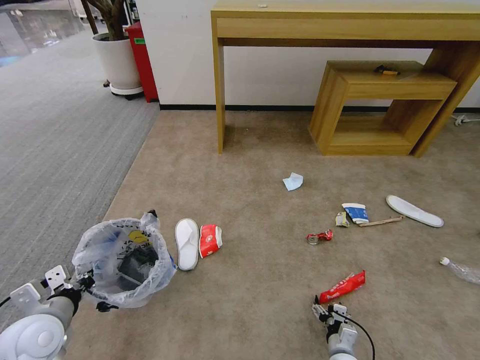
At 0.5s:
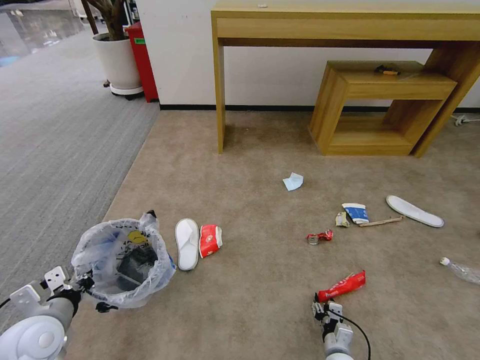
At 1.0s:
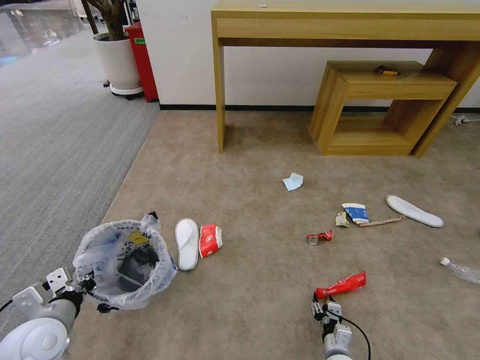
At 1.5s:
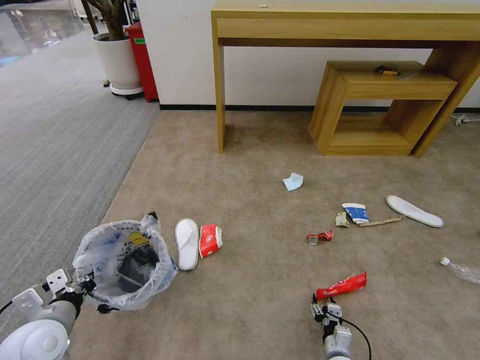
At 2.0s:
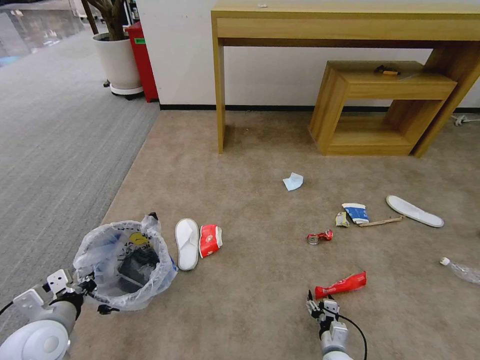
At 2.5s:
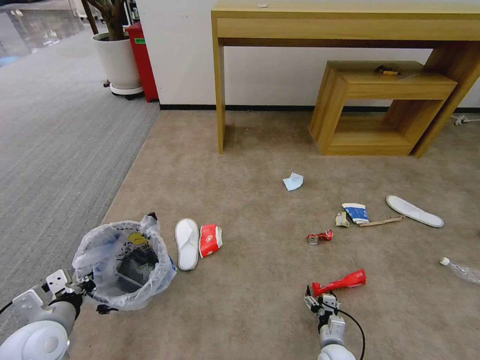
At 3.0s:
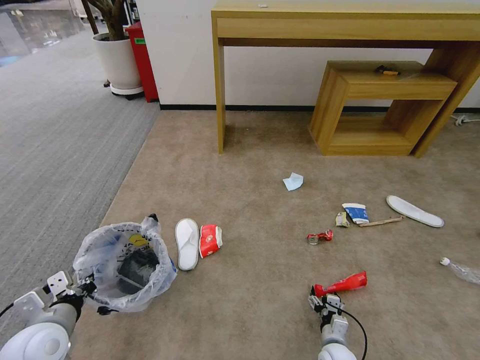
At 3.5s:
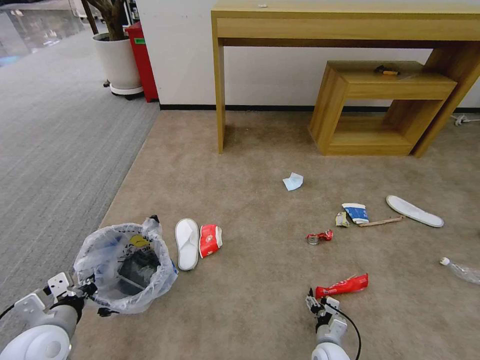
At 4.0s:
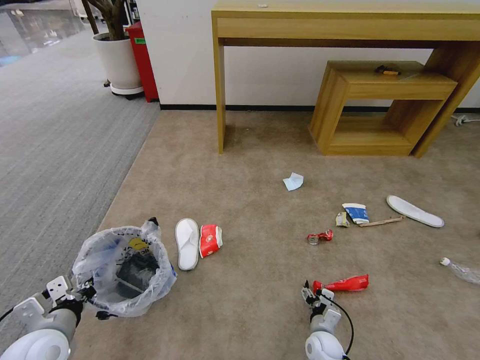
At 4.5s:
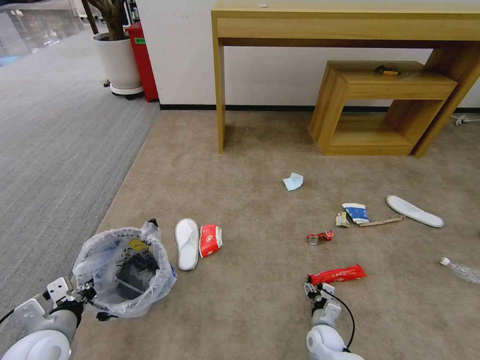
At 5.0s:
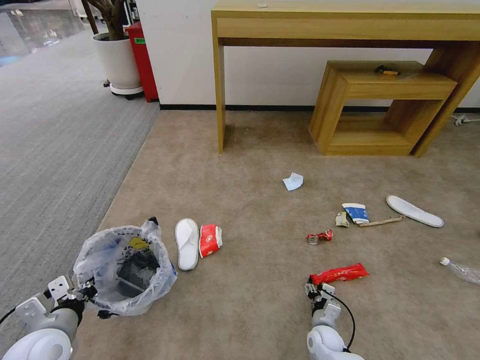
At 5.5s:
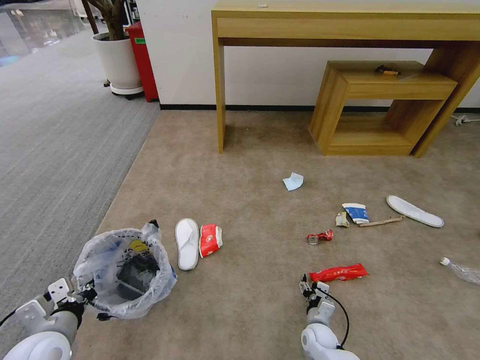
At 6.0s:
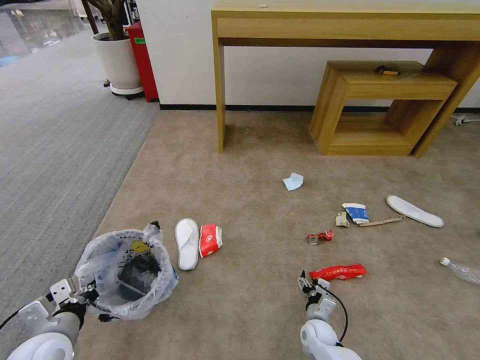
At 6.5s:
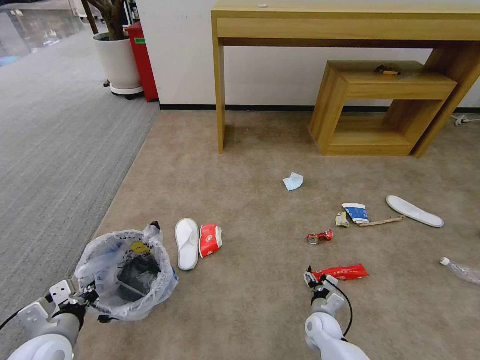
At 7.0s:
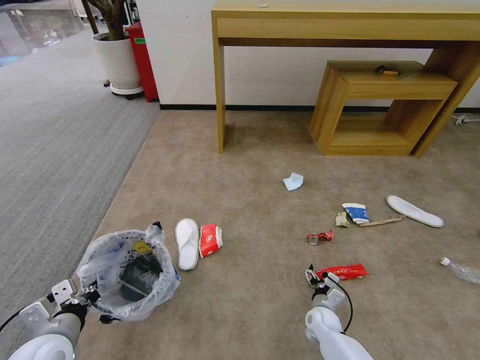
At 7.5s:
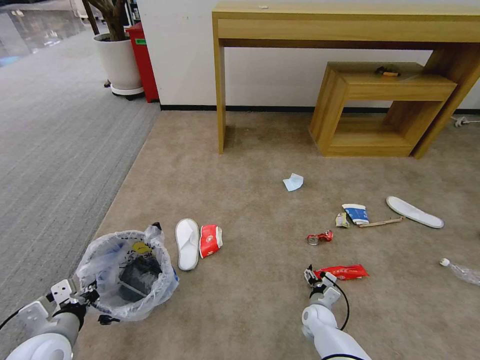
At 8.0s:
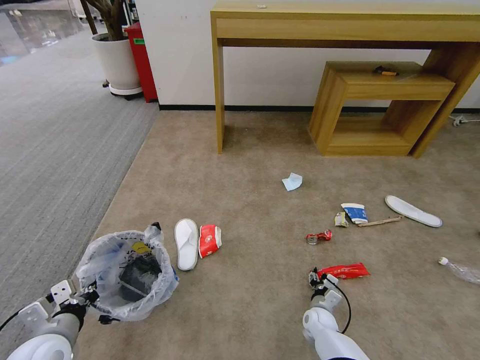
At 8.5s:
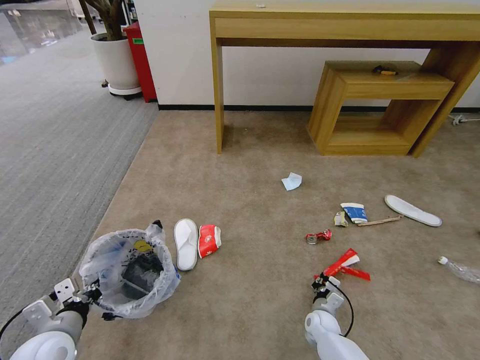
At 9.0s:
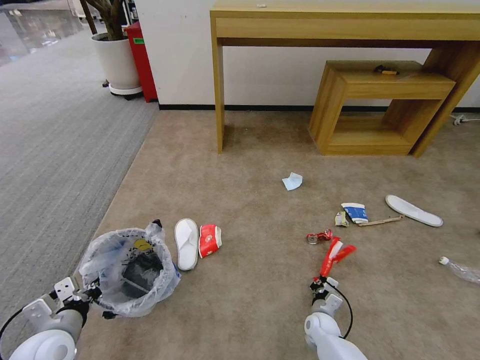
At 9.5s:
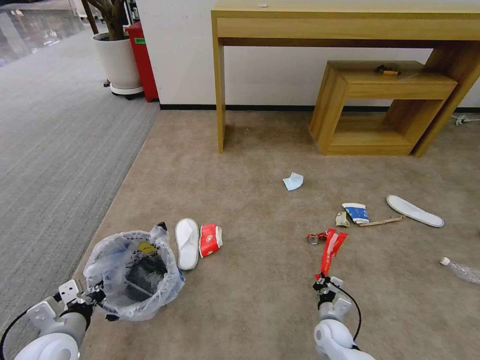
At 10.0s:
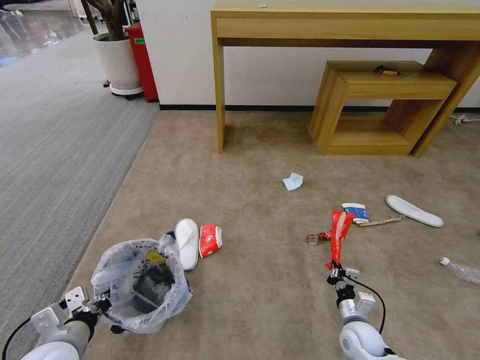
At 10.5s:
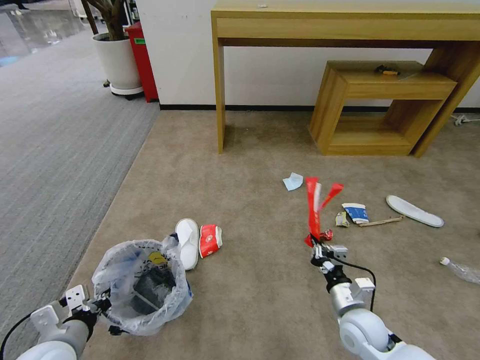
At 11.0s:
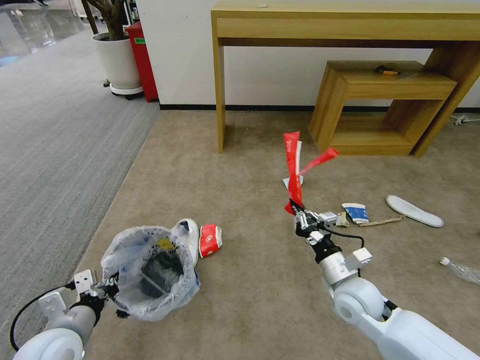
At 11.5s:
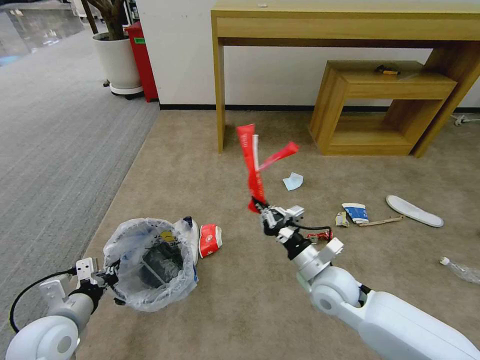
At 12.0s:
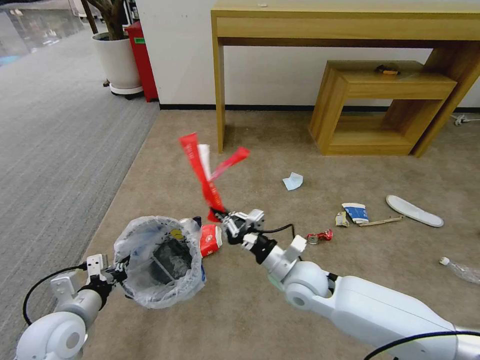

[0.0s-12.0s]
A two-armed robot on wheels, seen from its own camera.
Task of the whole recording: Pick up the trash bin and place the garbage on the floor into it.
0.0s to 2.0s: There are only small adjustments of the grippers.
2.0s to 4.0s: The right gripper is displaced forward by some 5 cm.
4.0s to 6.0s: The grippers make only small movements.
6.0s to 8.0s: The grippers stay close to where they were, moving slightly.
8.0s to 10.0s: The right gripper heads upward, backward and to the right, covering roughly 15 cm, and closes up.
10.0s to 12.0s: The right gripper shifts about 25 cm upward and to the left.

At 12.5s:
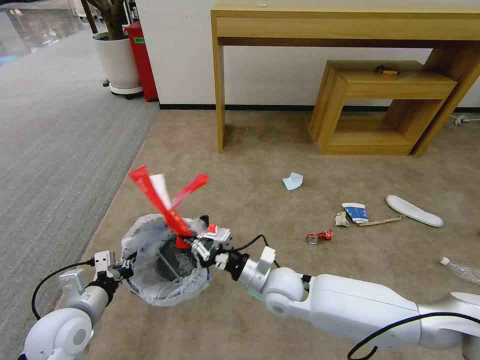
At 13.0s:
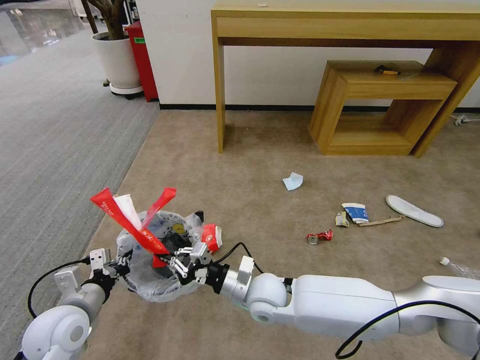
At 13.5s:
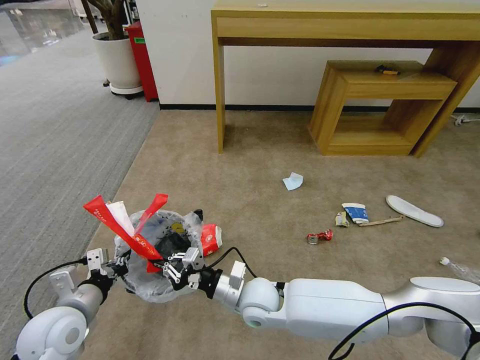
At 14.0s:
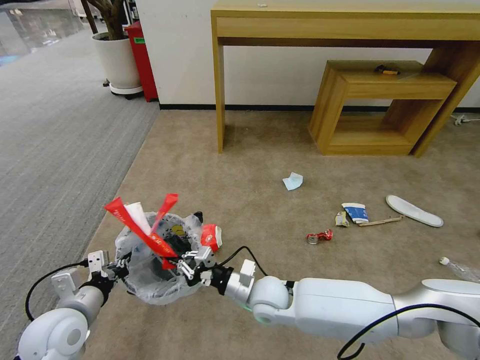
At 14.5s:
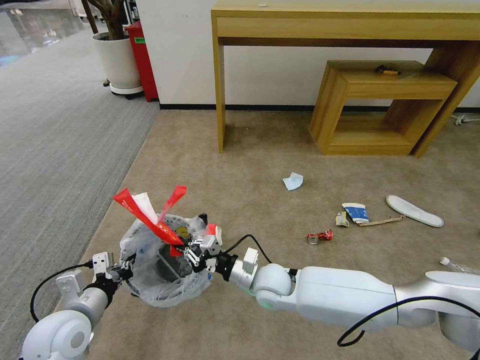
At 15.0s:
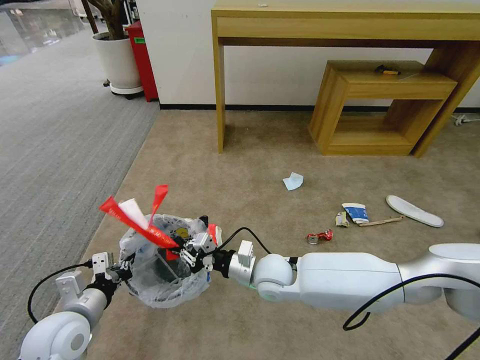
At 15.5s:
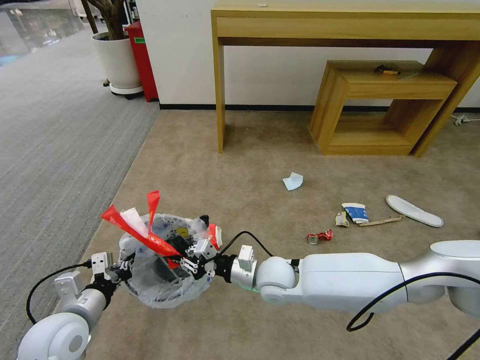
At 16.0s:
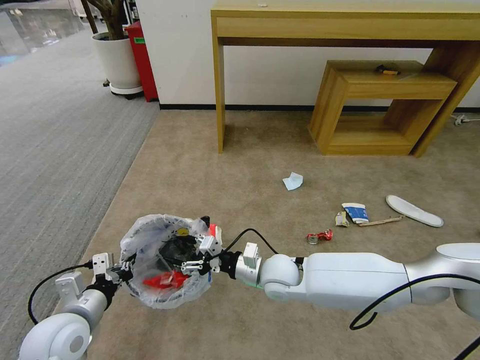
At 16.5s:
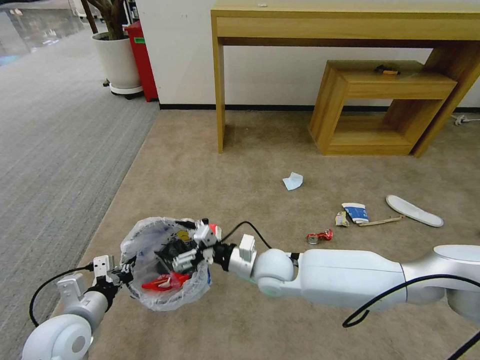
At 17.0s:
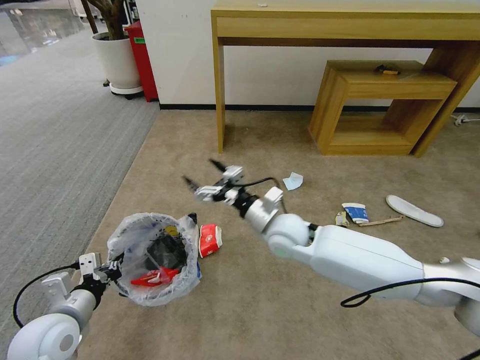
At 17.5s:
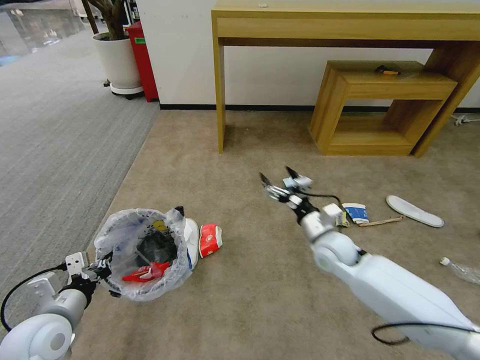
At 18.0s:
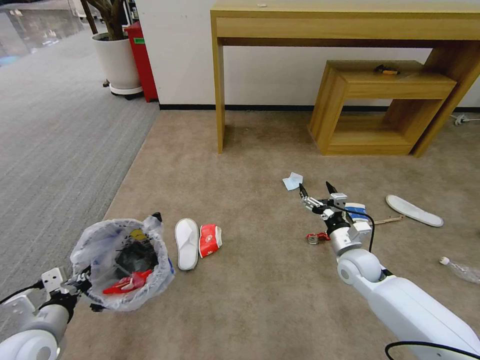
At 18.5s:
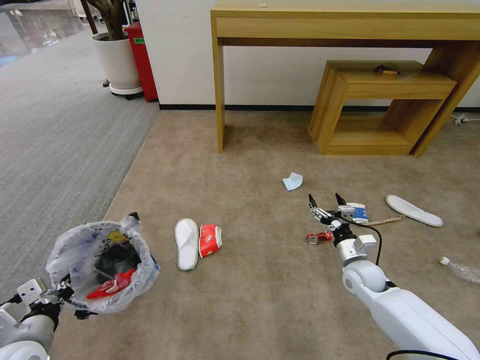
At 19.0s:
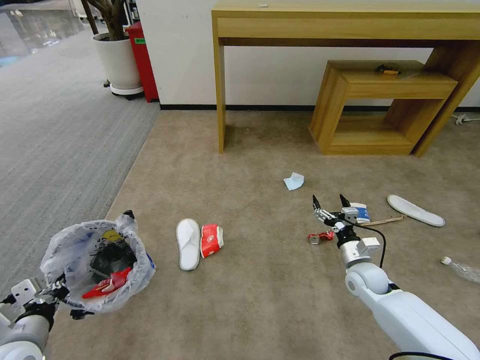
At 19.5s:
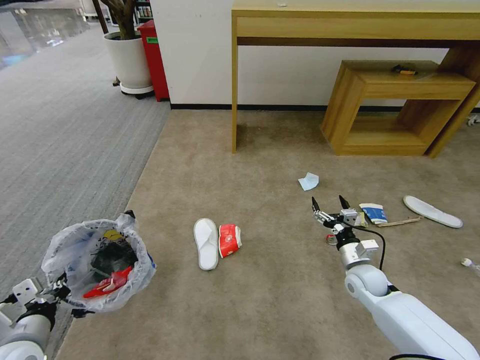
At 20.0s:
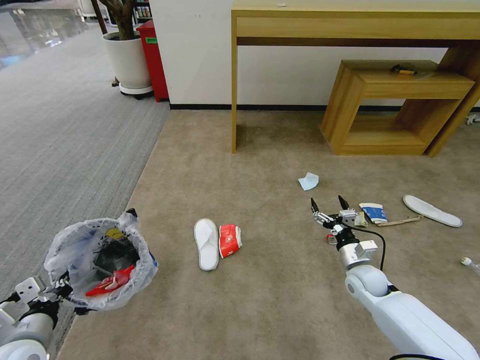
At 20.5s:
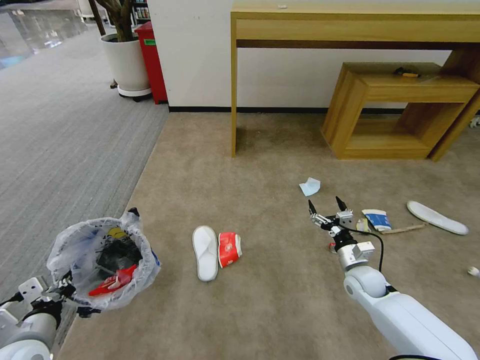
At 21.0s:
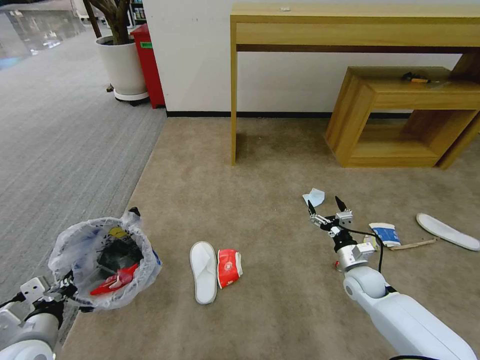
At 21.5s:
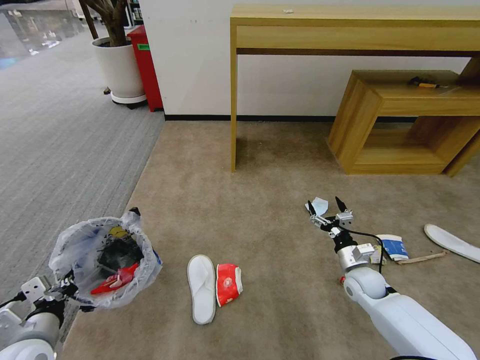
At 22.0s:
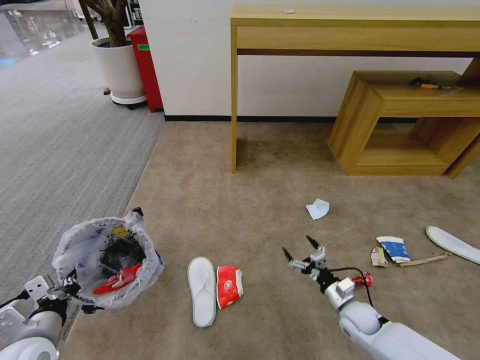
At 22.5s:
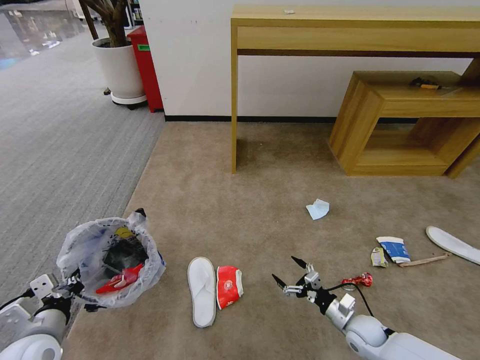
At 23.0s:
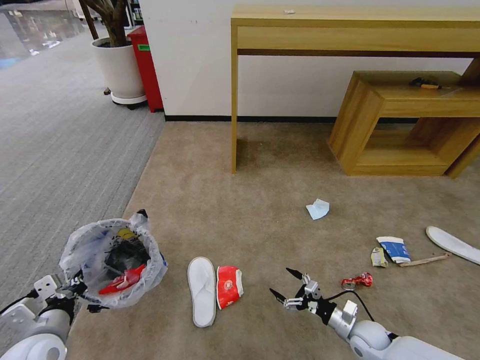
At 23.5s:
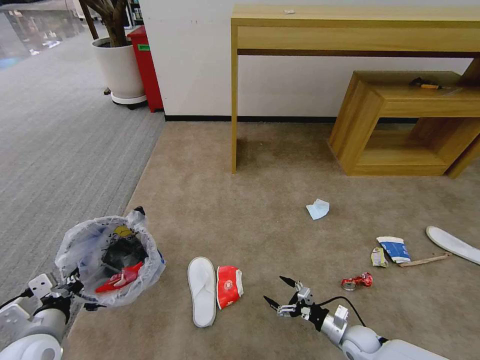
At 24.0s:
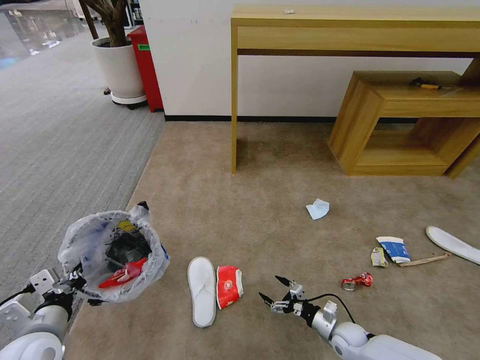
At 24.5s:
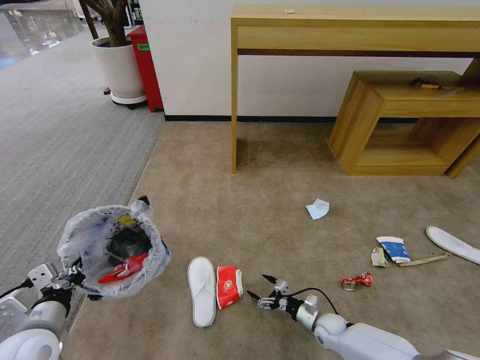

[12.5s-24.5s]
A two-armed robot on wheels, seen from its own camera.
Task of the whole recording: Pick up the trash bin and place the garbage on the floor into it.
14.5s to 16.5s: The right gripper opens.
16.5s to 18.5s: The right gripper travels to the right by roughly 25 cm. The left gripper moves to the left, some 5 cm.
18.5s to 20.5s: The grippers make only small movements.
20.5s to 22.5s: The right gripper is displaced backward and downward by roughly 15 cm.
22.5s to 24.5s: The right gripper goes approximately 10 cm downward and to the left.

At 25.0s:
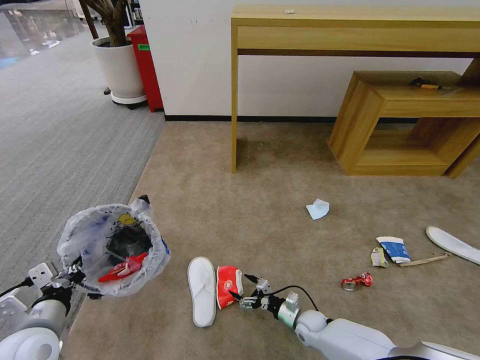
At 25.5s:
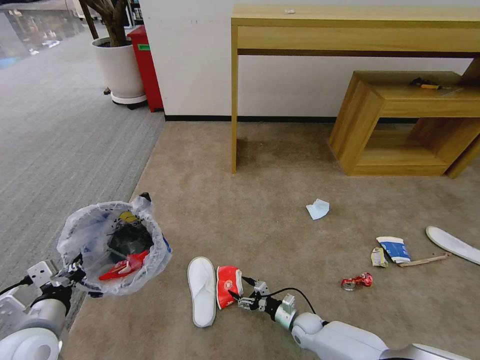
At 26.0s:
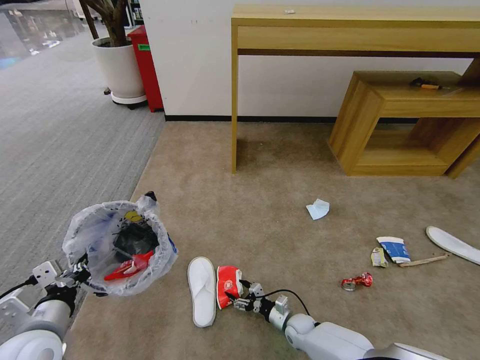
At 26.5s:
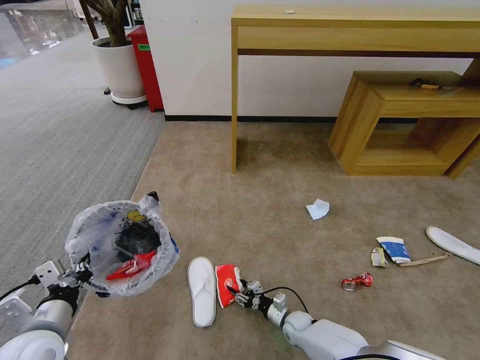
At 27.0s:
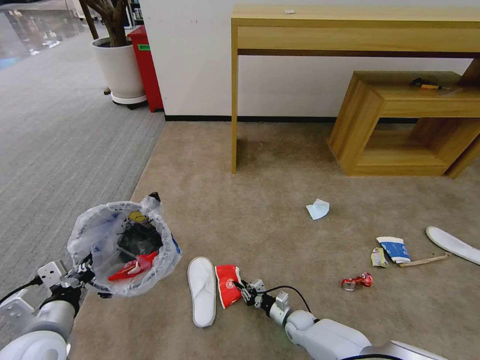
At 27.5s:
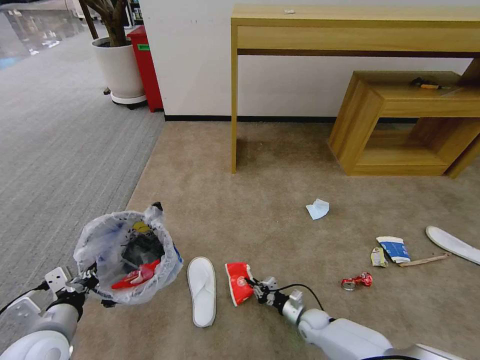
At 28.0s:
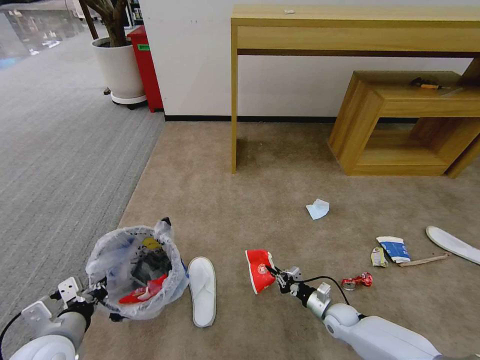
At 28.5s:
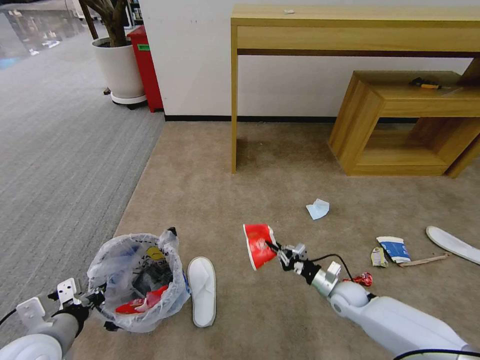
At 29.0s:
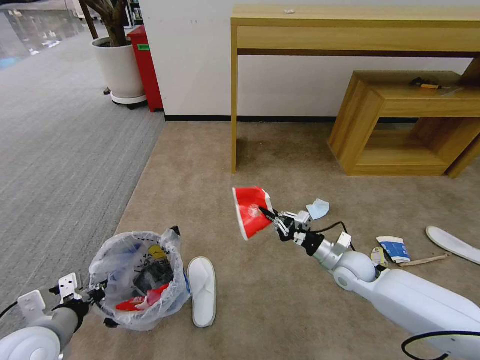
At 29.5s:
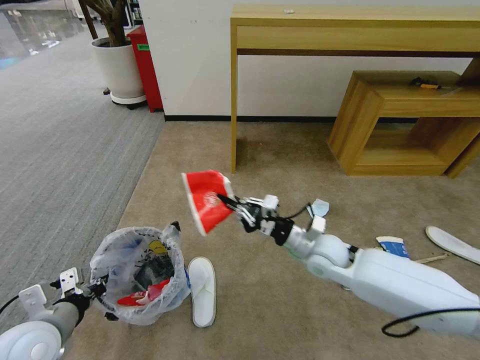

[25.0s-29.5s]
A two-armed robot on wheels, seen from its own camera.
Task of the whole recording: Pick up the trash bin and place the garbage on the floor into it.
25.0s to 27.0s: The right gripper closes up.
27.0s to 29.5s: The right gripper shifts roughly 35 cm upward.
